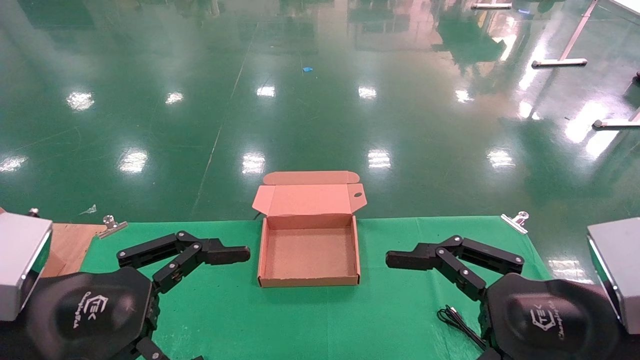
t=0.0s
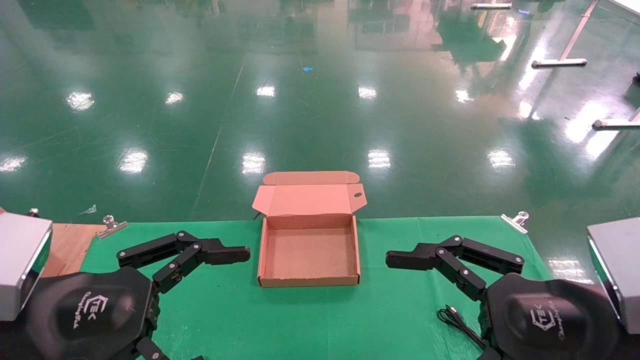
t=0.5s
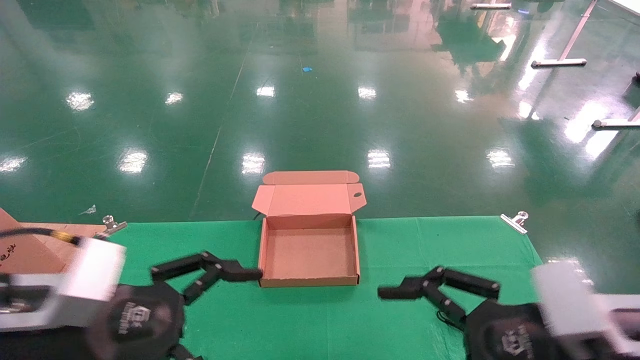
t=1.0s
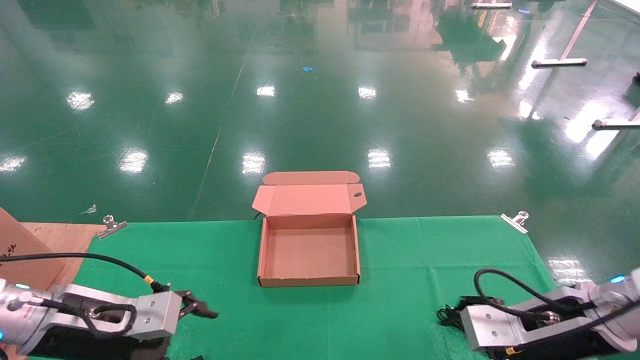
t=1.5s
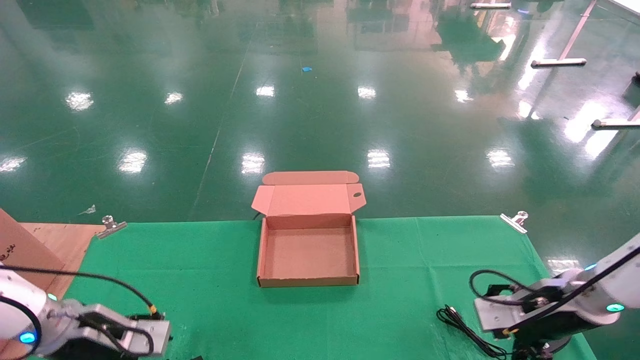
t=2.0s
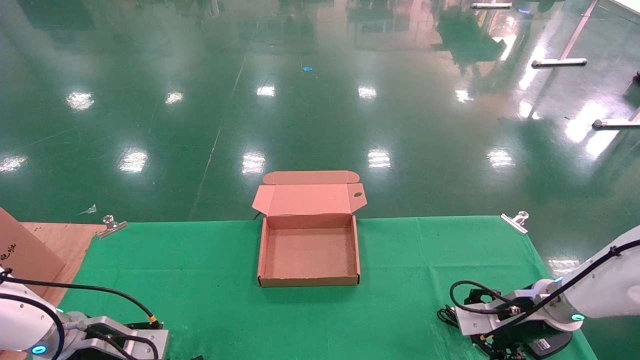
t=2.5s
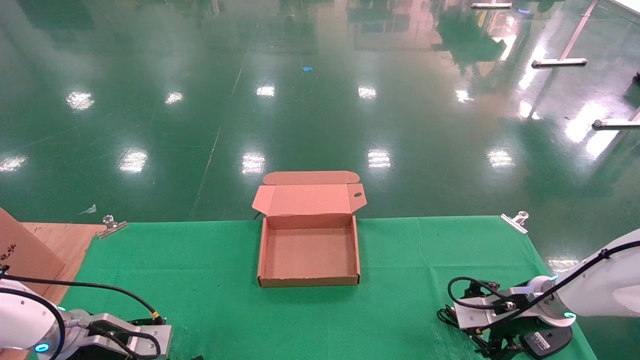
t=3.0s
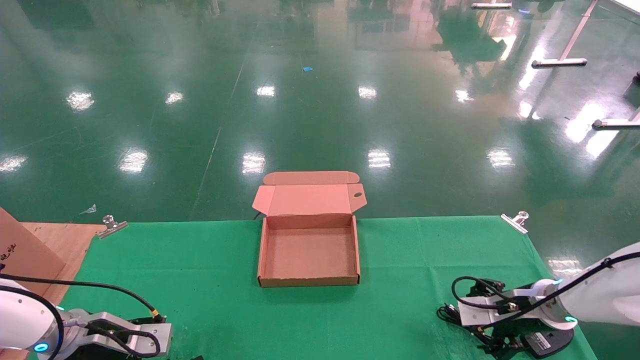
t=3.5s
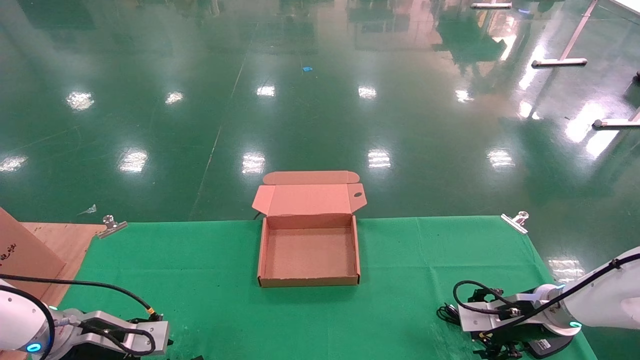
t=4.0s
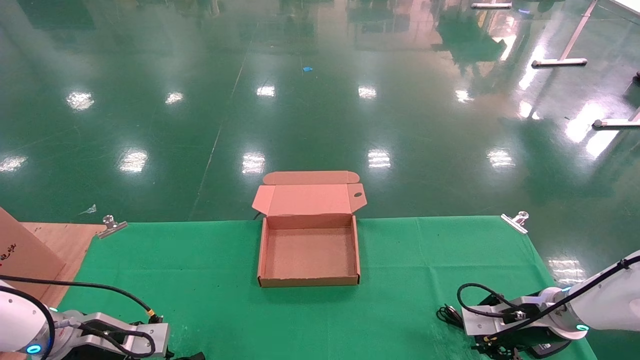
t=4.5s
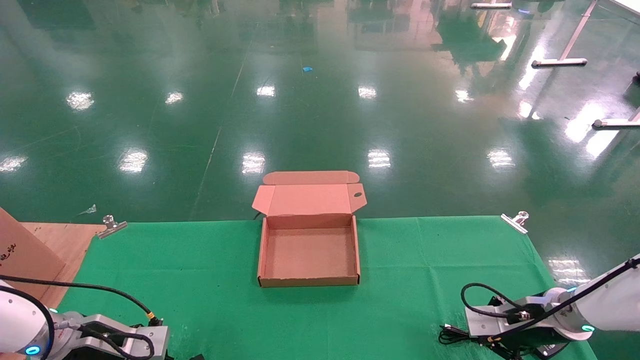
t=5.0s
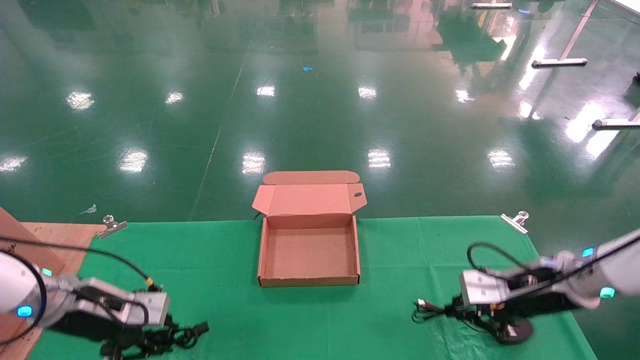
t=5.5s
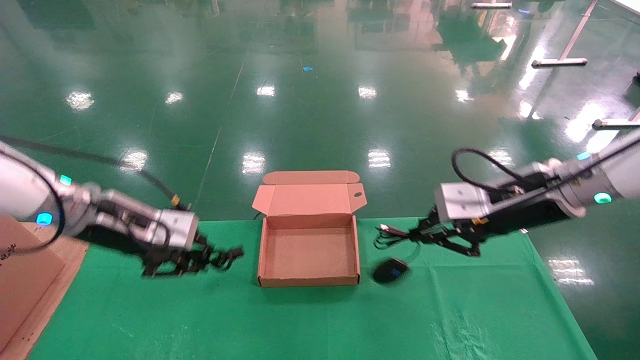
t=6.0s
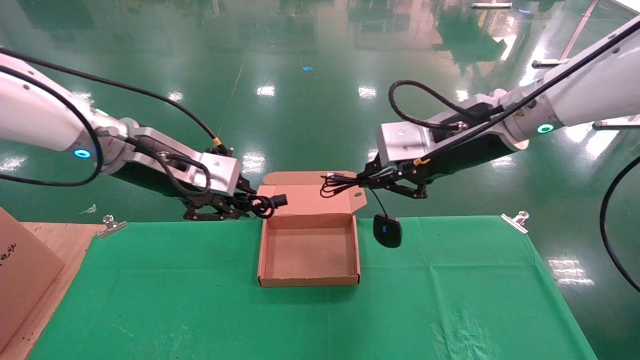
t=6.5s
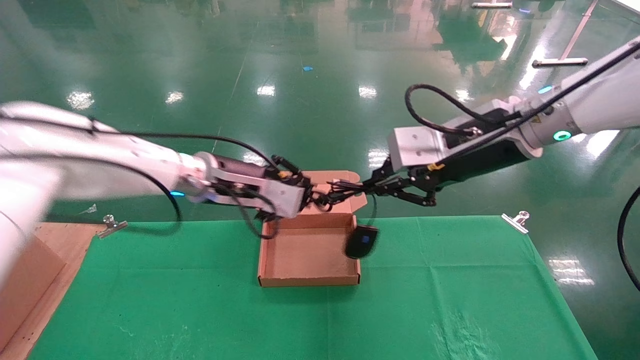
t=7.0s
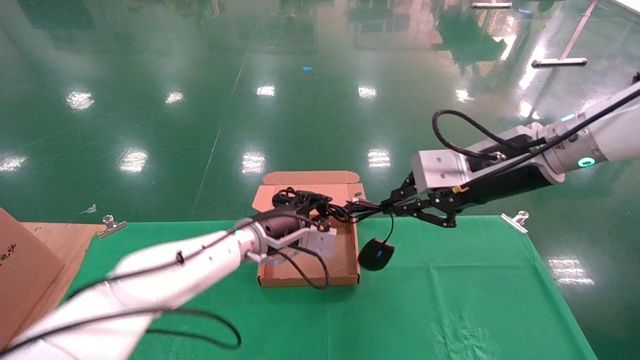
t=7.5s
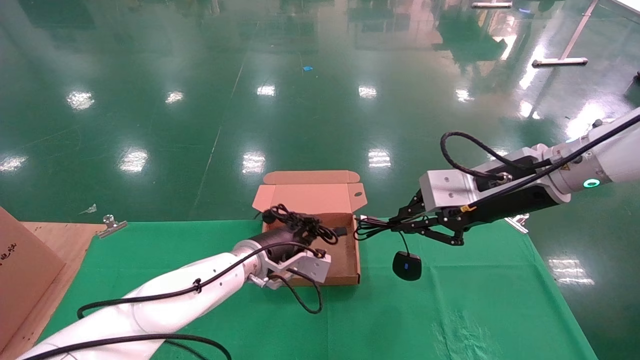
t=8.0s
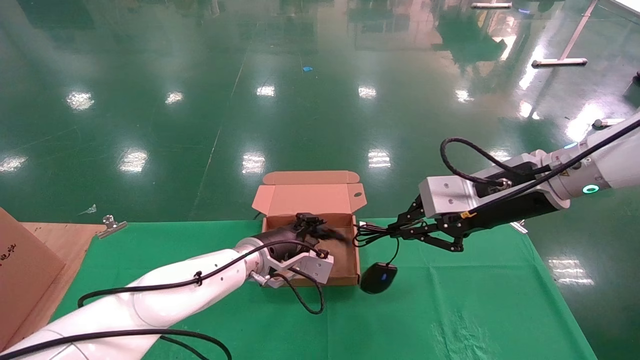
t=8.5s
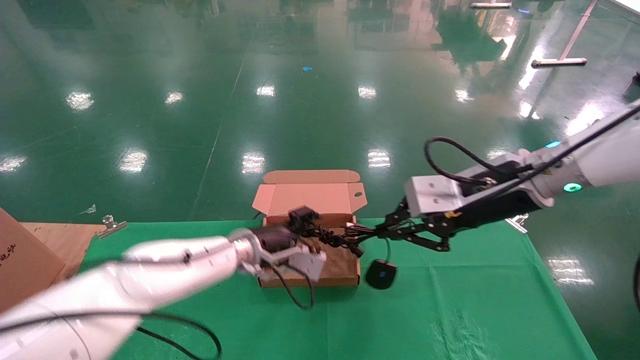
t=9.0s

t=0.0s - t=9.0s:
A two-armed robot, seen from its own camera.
Step, t=1.0s - t=5.0s: Grab and lift both the mouse and power cord from the accessory packaging area at the same time.
t=0.0s - t=2.0s: The left gripper goes approximately 25 cm forward, downward and to the left, while the right gripper shifts about 20 cm forward and downward.
t=2.0s - t=4.5s: The right gripper travels downward by approximately 5 cm, and closes. Meanwhile the left gripper closes up.
t=4.5s - t=7.0s: The left gripper shifts some 30 cm upward and to the right, while the right gripper goes some 30 cm upward and to the left, and closes up.
t=7.0s - t=9.0s: The left gripper is displaced downward by about 10 cm, and opens its fingers.

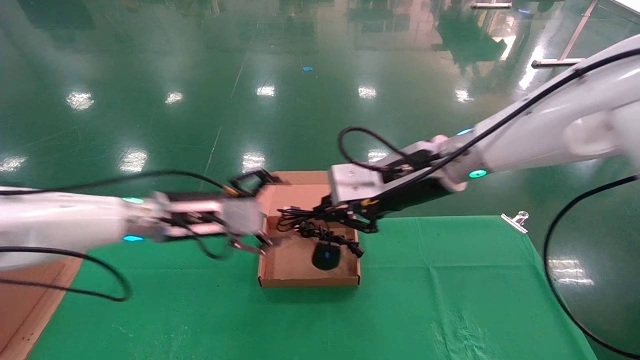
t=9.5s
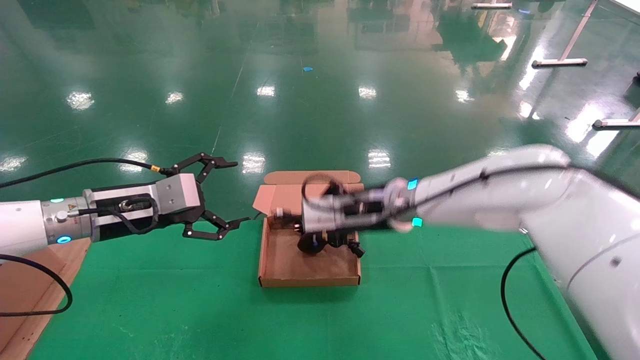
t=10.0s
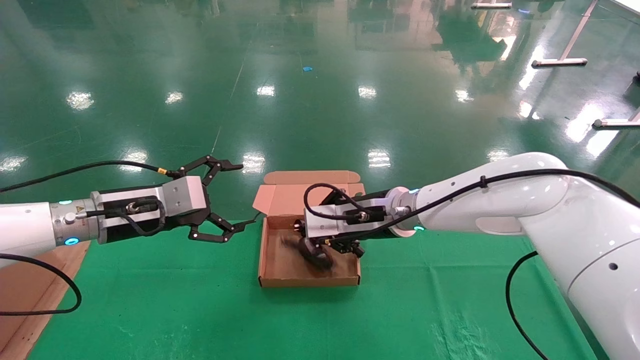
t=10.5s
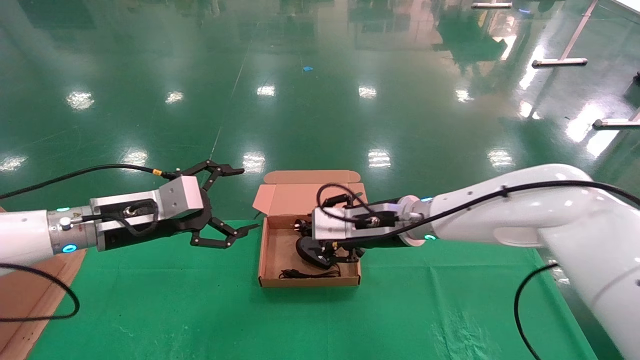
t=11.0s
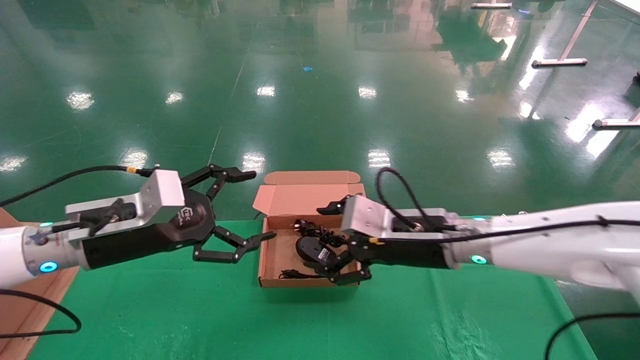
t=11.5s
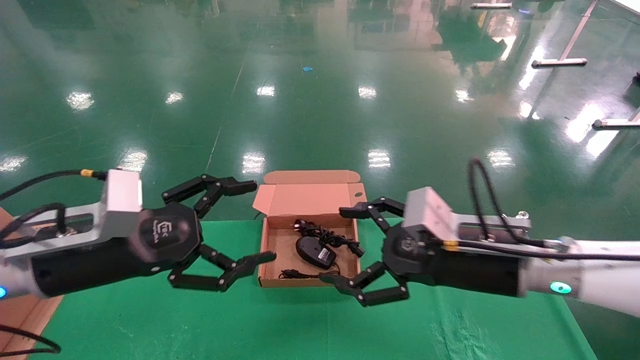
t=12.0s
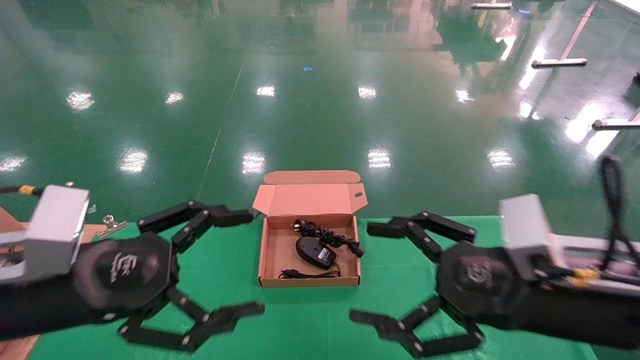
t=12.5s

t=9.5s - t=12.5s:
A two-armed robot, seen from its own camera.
t=9.5s - t=11.0s: The right gripper shifts some 10 cm downward, and opens up. Meanwhile the left gripper moves to the left, some 5 cm.
t=11.0s - t=12.5s: The left gripper heads backward, covering some 15 cm. Meanwhile the right gripper travels backward and to the right by some 25 cm, and opens.

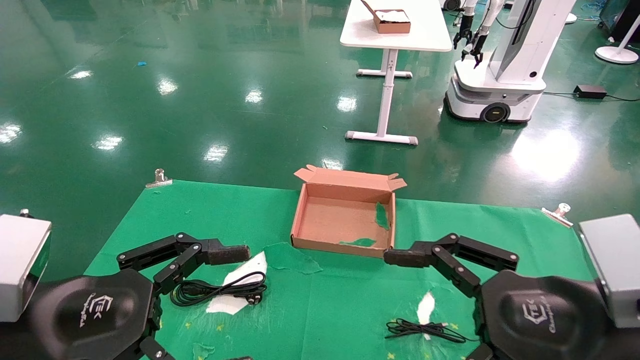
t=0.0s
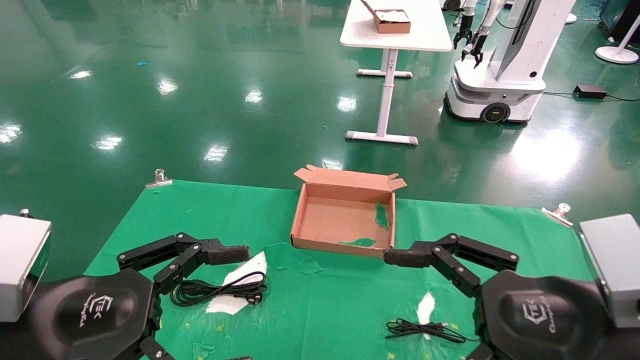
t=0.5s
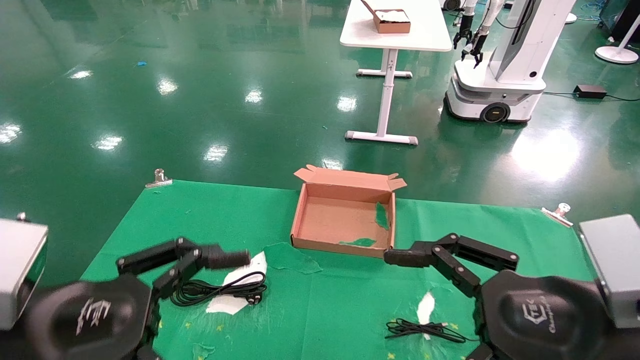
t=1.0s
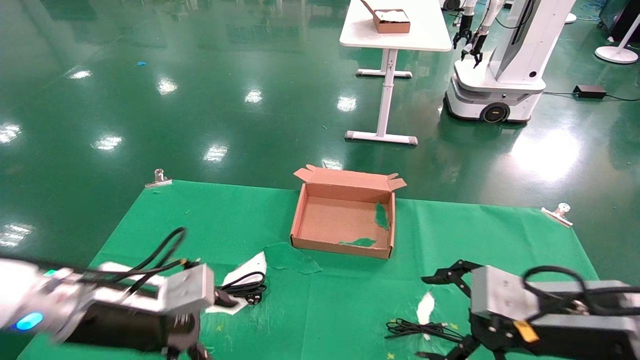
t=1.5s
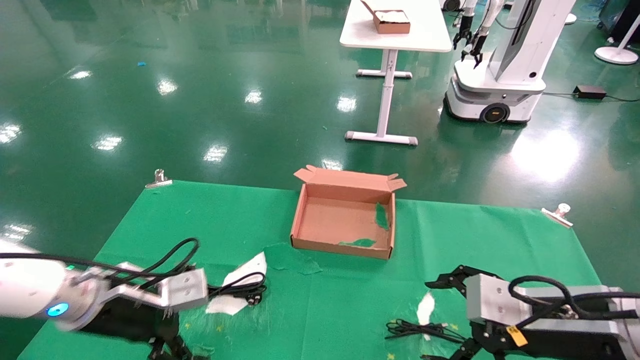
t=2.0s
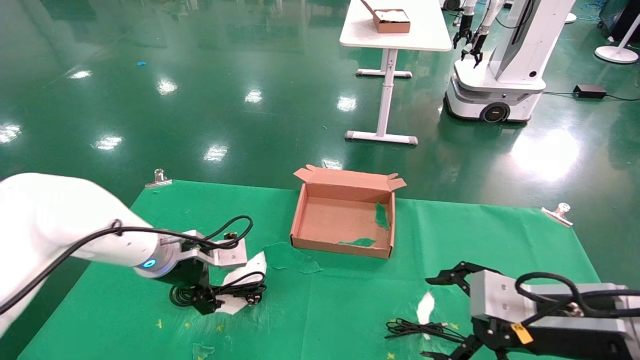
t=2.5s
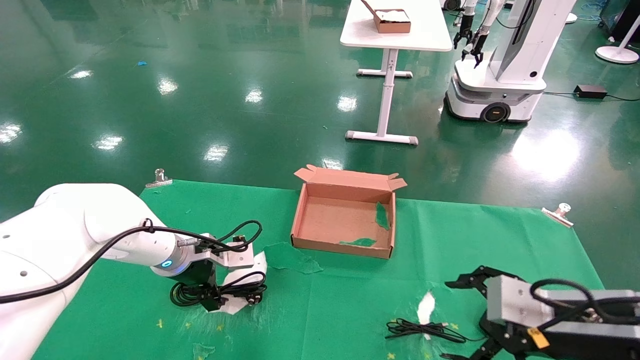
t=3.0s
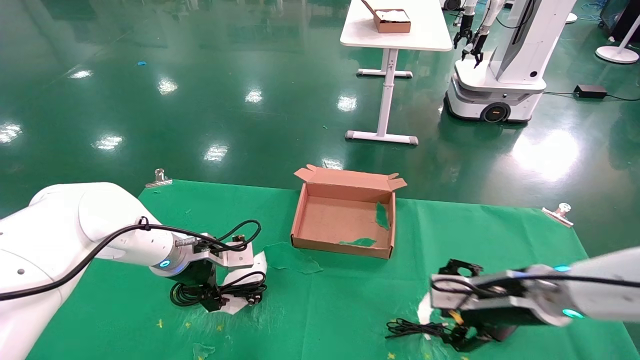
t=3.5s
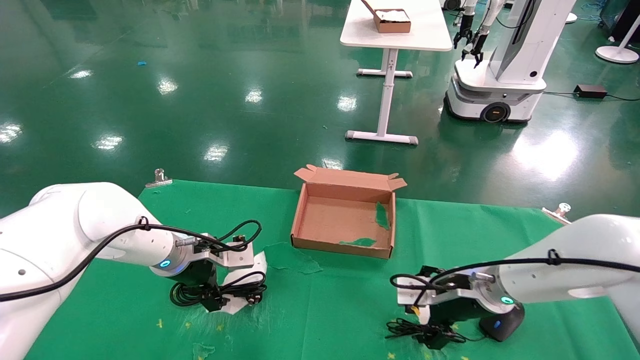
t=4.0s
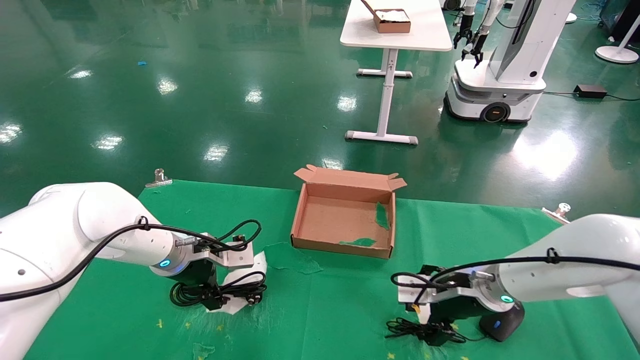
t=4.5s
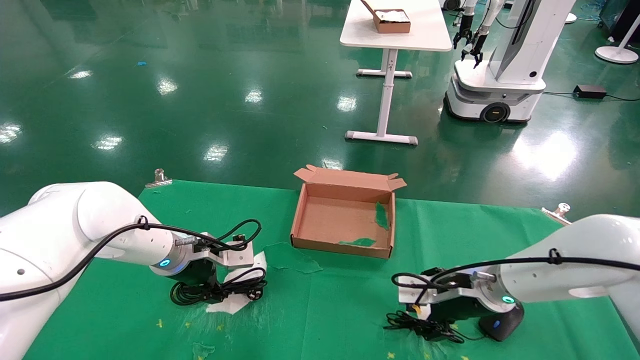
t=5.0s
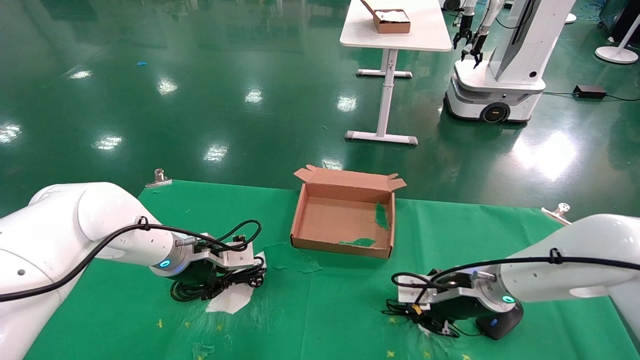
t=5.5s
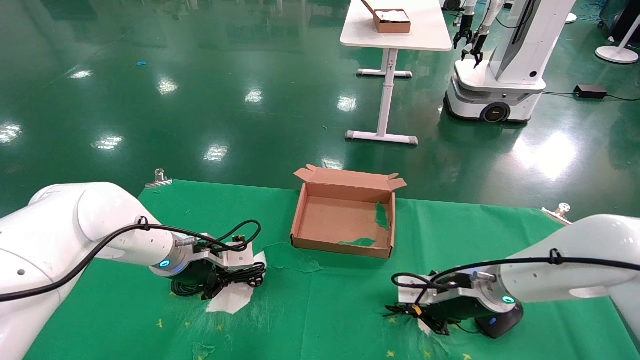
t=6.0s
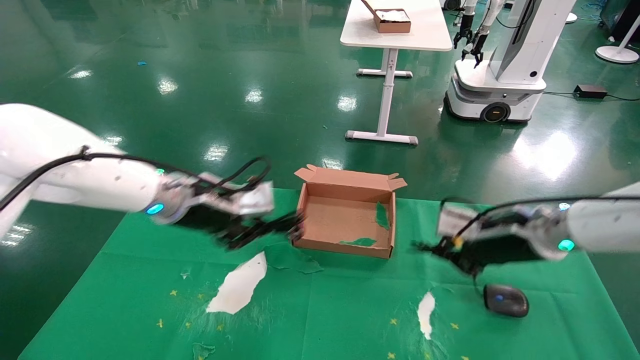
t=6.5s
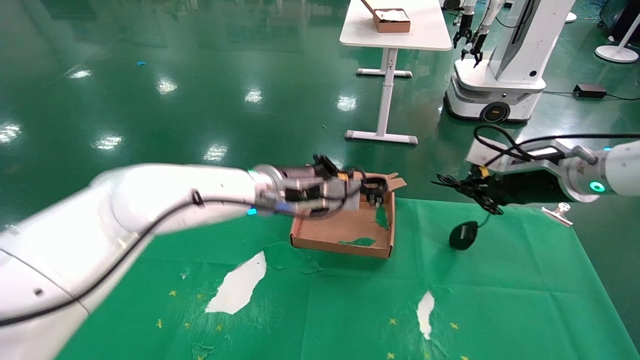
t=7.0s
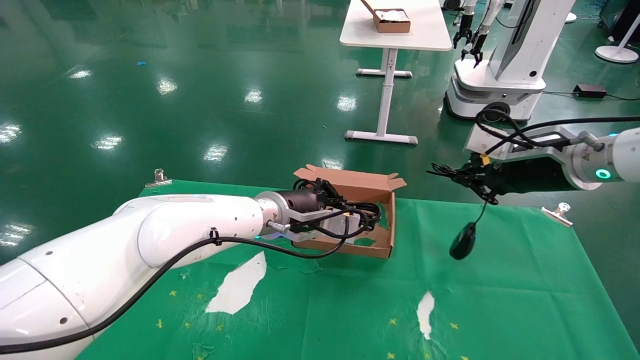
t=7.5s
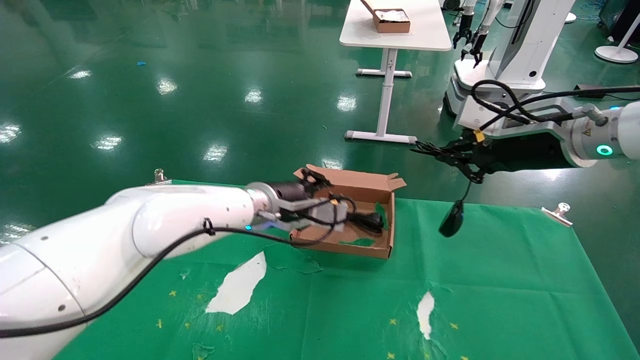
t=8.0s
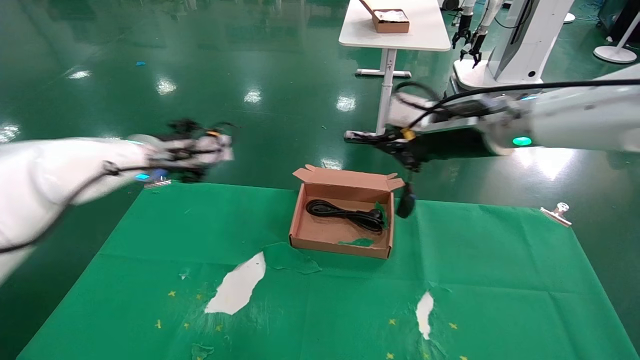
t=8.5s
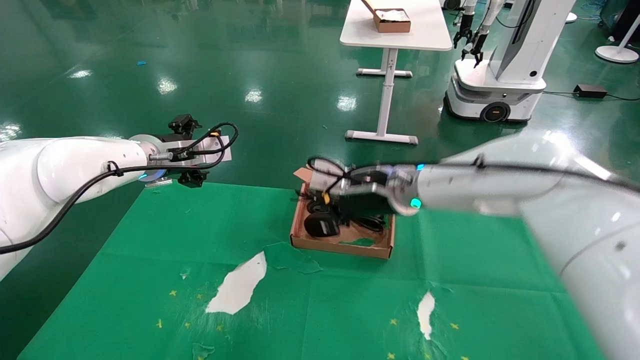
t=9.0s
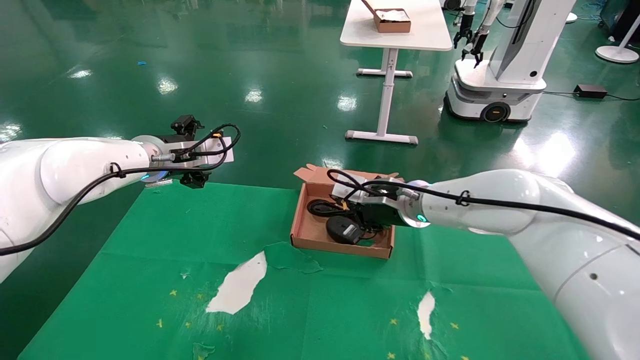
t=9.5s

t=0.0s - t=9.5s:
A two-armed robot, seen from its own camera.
Step, t=1.5s - t=6.0s: Grab and lift both the mouse and power cord from the accessory packaging area at the same time.
t=0.0s - t=2.0s: The right gripper moves forward, approximately 10 cm; the left gripper goes some 15 cm forward.
t=2.0s - t=4.0s: Both grippers travel together forward, about 15 cm.
t=4.0s - t=5.5s: The right gripper closes. Meanwhile the left gripper closes.
t=5.5s - t=7.5s: The left gripper is displaced to the right and upward by approximately 15 cm. The right gripper heads upward and to the right, covering roughly 20 cm.
t=7.5s - t=9.5s: The left gripper goes some 20 cm to the left and upward, and opens up. The right gripper shifts some 20 cm to the left and downward.
